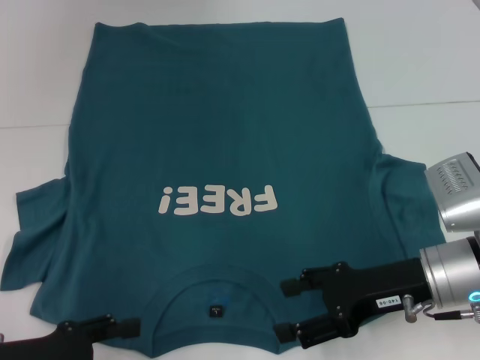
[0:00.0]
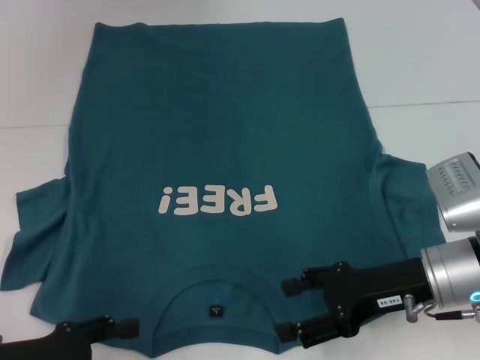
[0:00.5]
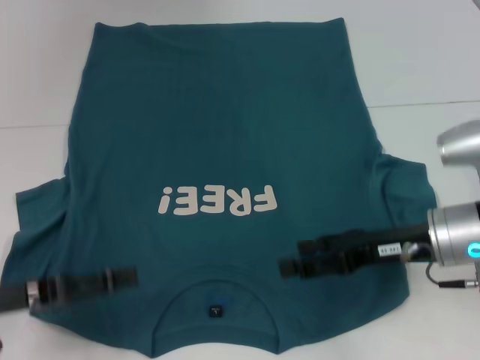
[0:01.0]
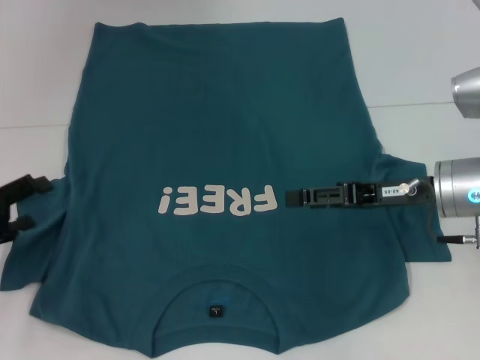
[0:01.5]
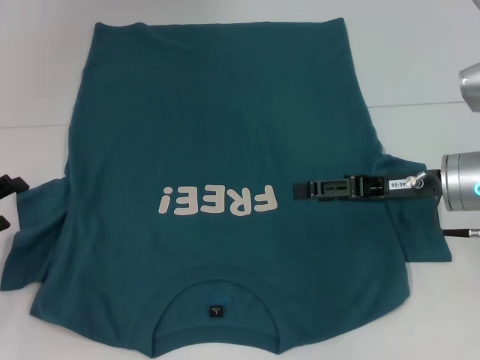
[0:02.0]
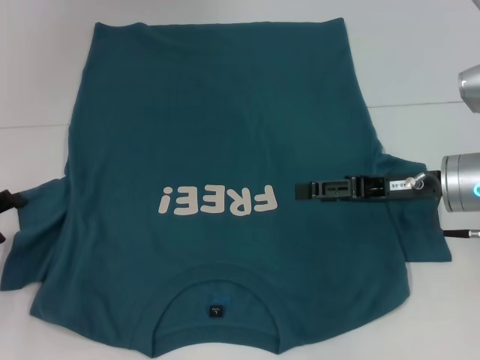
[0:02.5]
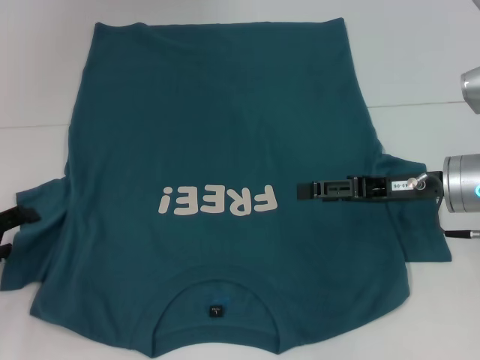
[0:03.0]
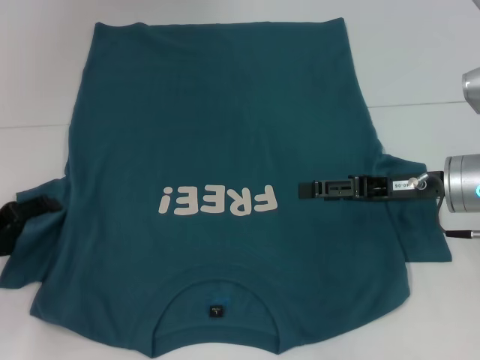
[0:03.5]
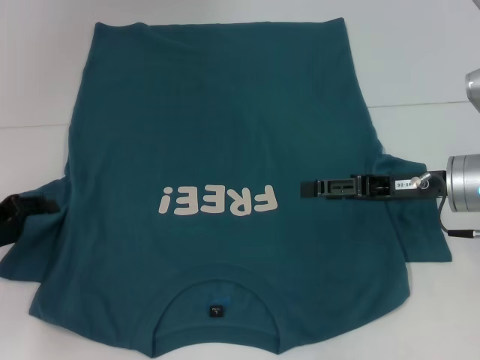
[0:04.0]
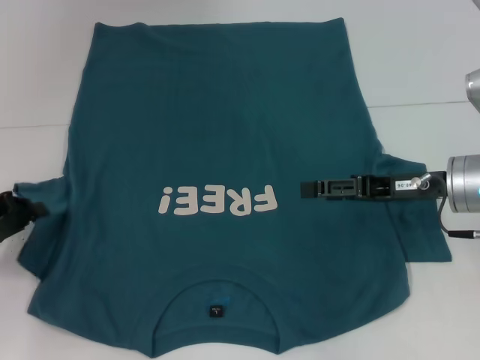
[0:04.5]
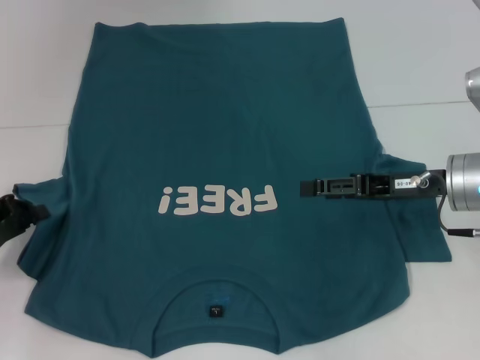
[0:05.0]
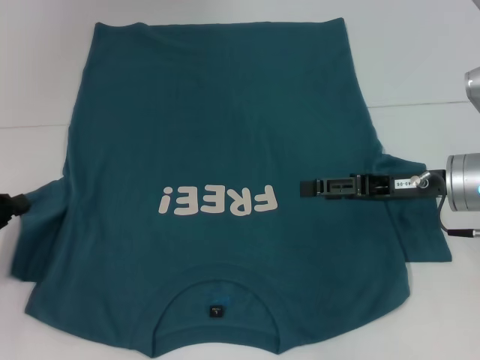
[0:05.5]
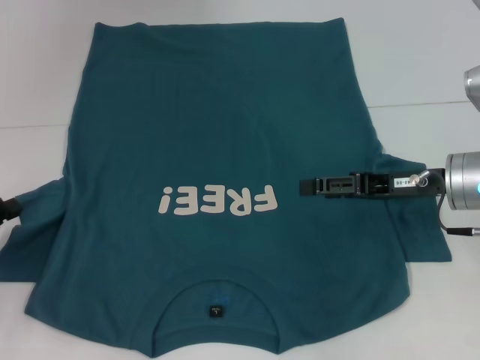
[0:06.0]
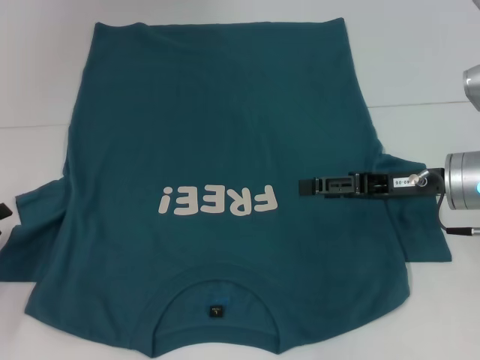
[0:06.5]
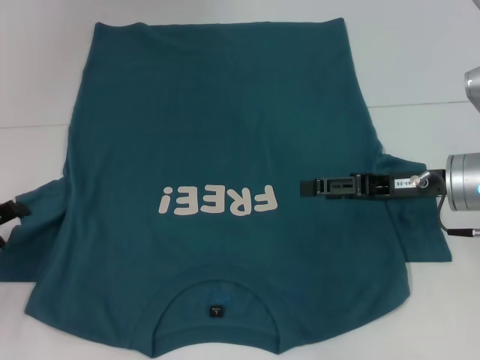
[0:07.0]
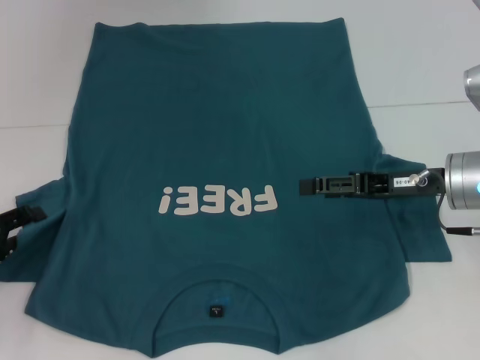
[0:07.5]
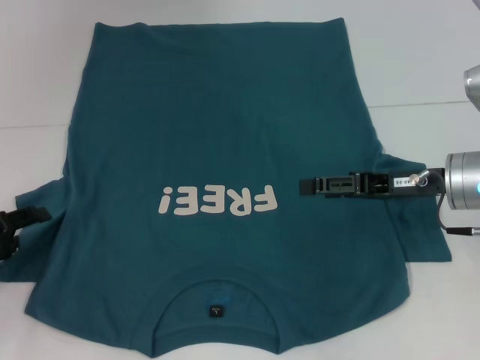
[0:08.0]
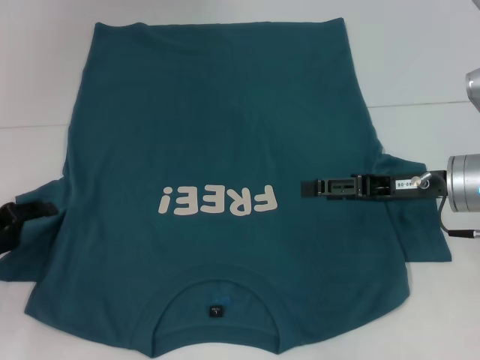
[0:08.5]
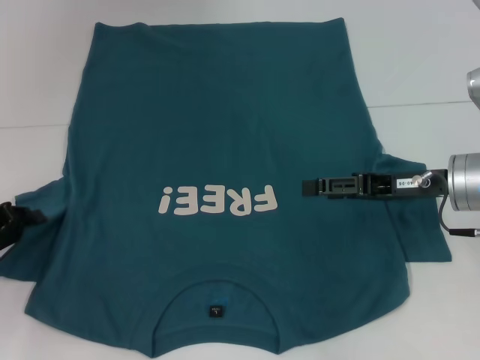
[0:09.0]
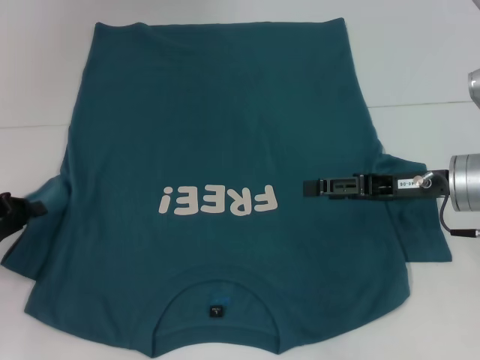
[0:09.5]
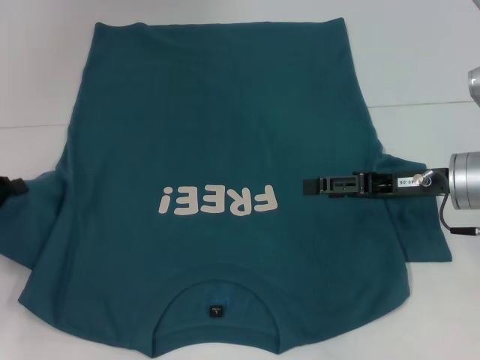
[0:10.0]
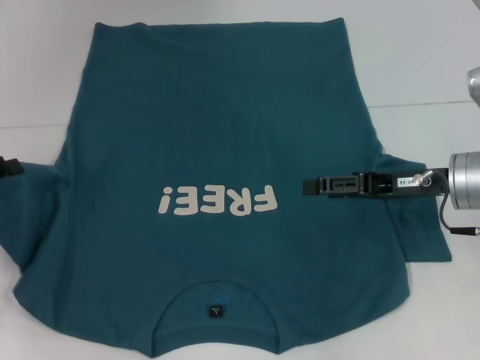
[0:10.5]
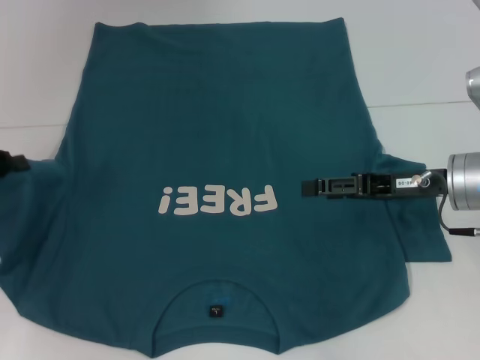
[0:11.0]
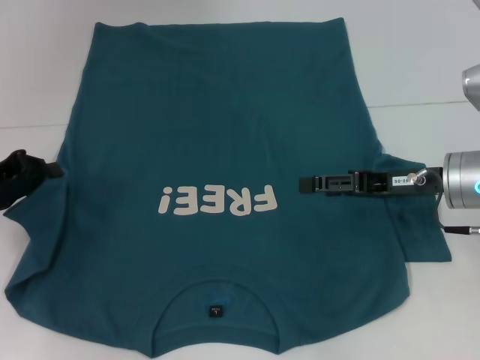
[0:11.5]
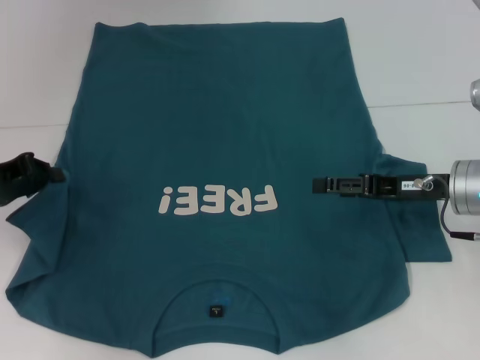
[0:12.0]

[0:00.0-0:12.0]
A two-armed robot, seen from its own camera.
0:00.0 to 0:02.0: The left gripper is displaced forward and to the left by some 15 cm; the right gripper heads forward, covering roughly 5 cm.
0:02.0 to 0:04.0: There are only small adjustments of the grippers.
0:04.0 to 0:06.0: The left gripper closes its fingers.
0:06.0 to 0:08.0: The left gripper opens.
0:08.0 to 0:10.0: The left gripper closes up.
0:10.0 to 0:12.0: The left gripper ends up approximately 5 cm from where it was.

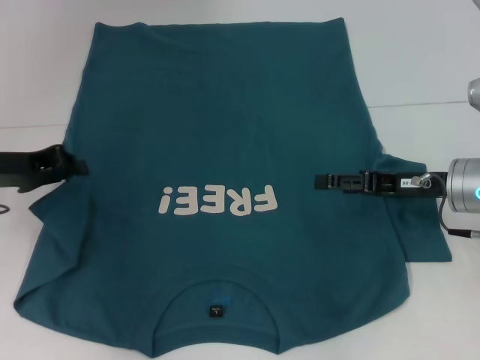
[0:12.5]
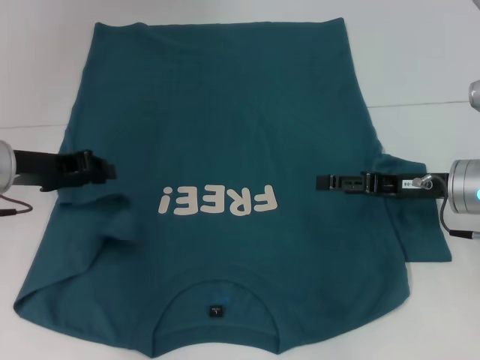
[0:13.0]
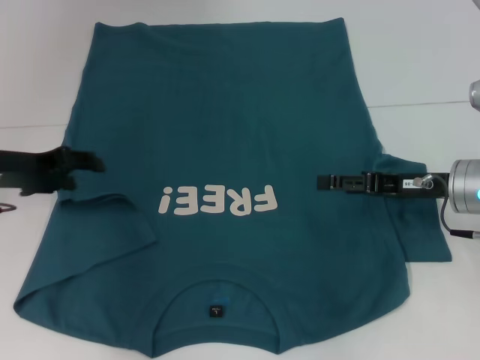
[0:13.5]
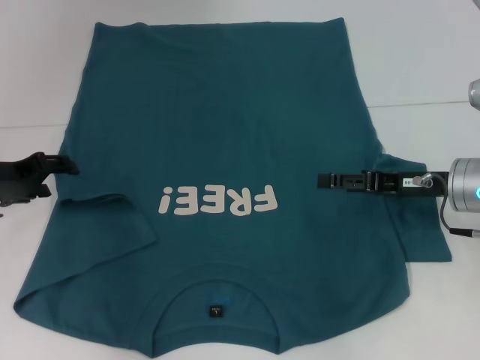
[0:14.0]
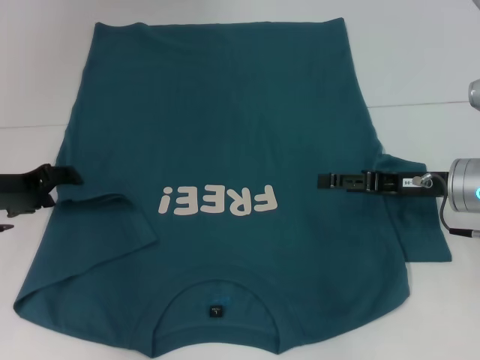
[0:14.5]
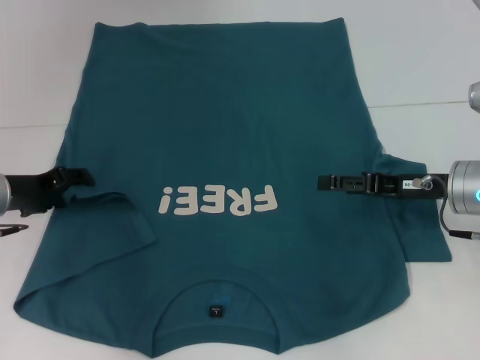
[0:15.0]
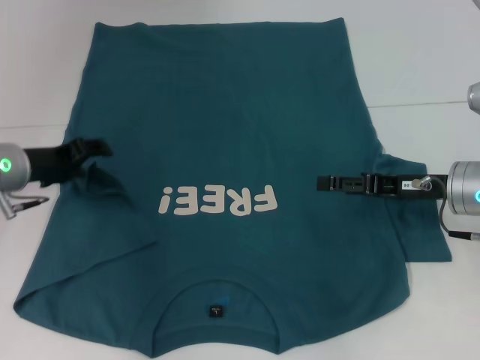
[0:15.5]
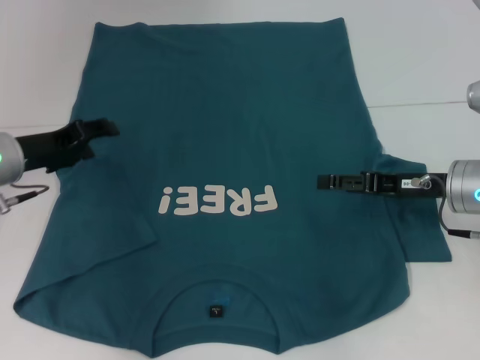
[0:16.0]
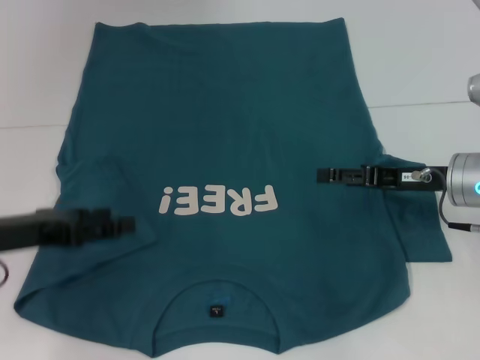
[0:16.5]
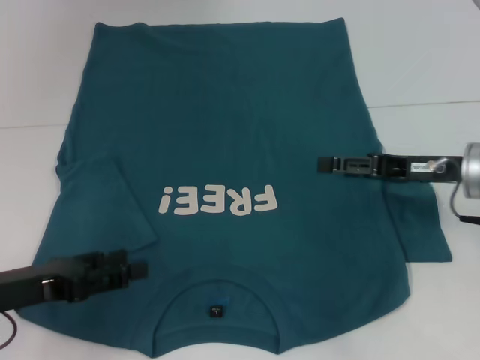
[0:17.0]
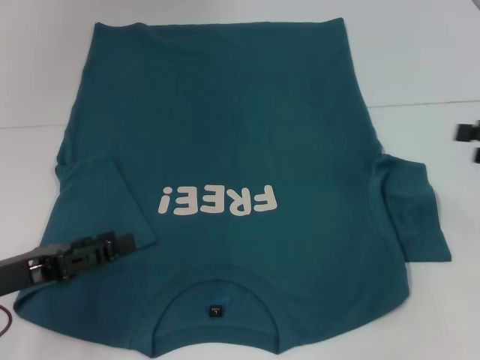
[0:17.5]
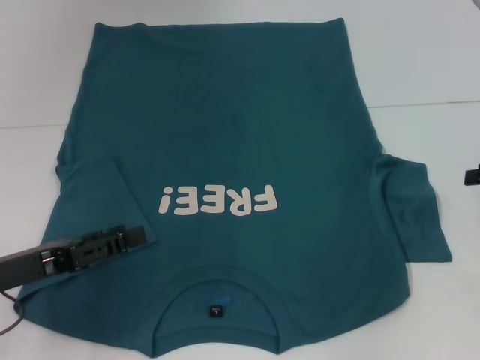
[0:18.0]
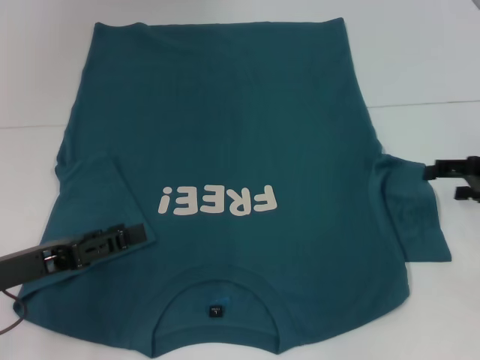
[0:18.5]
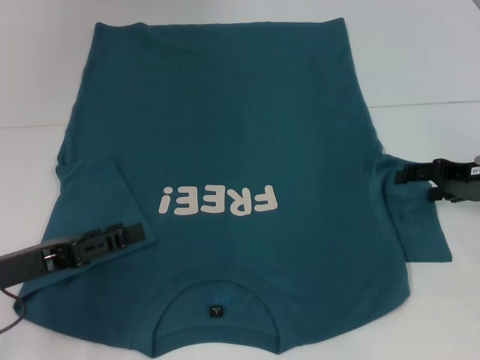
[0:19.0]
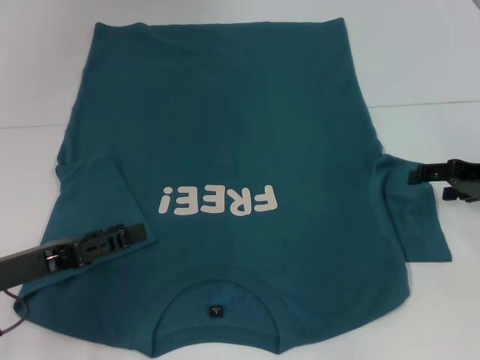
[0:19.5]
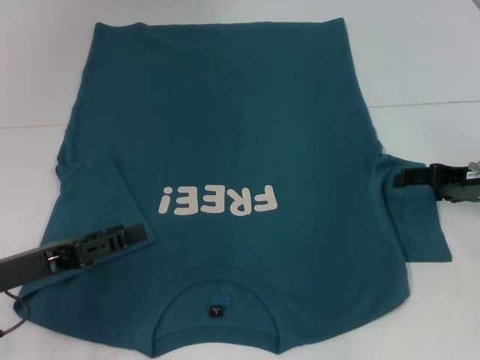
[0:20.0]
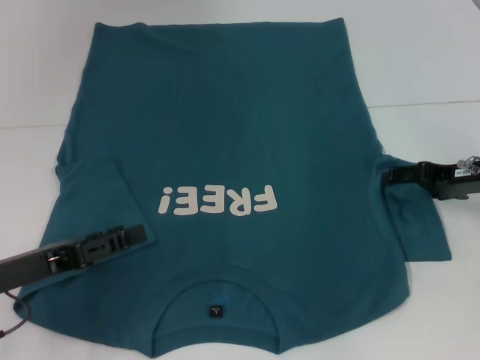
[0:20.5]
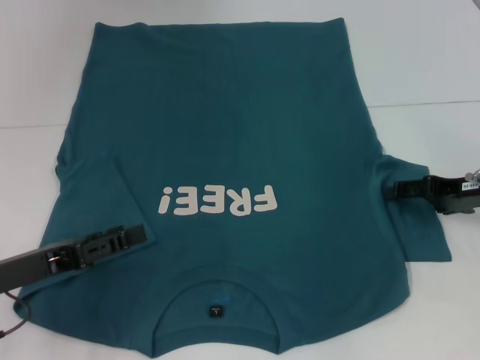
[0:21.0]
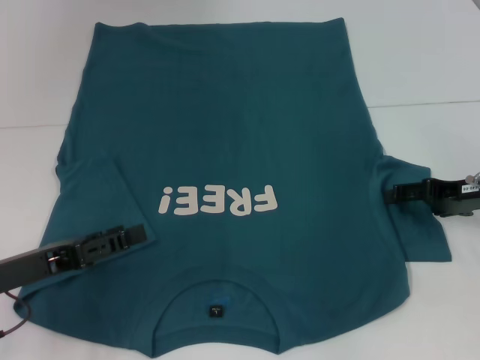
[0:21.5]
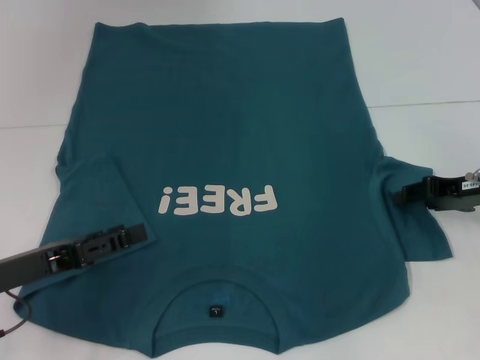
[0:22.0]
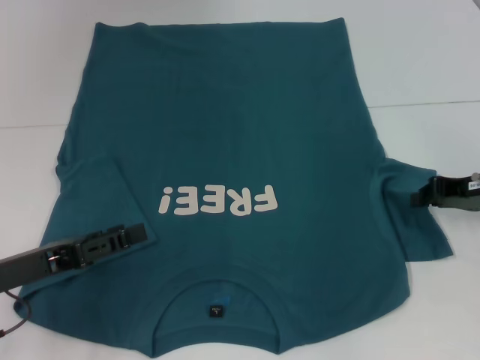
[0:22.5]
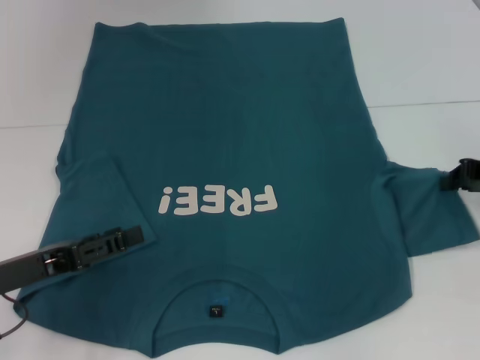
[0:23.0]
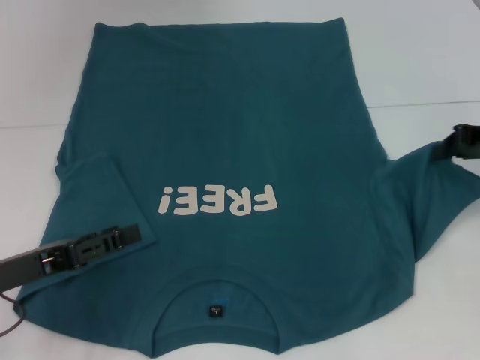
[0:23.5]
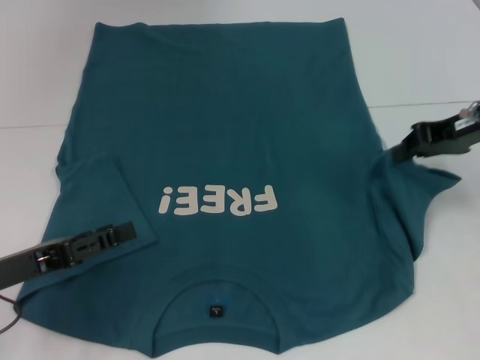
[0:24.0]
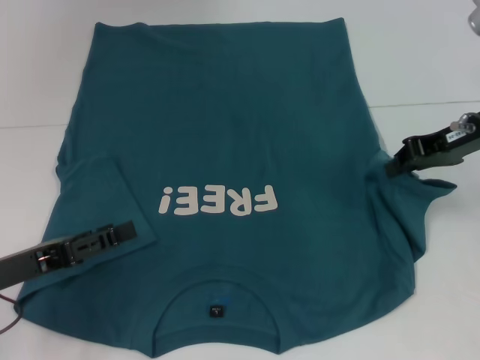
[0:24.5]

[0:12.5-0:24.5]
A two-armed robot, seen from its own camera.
Step, 0:12.5 to 0:15.5: Fold the bottom left sleeve with your left hand.
0:12.5 to 0:14.5: The left gripper opens its fingers.
0:14.5 to 0:16.5: The left gripper shifts roughly 10 cm backward.
0:16.5 to 0:18.5: The right gripper moves to the right, approximately 10 cm.
0:18.5 to 0:20.5: The right gripper shifts by approximately 5 cm.
0:20.5 to 0:22.5: The right gripper closes up.
0:22.5 to 0:24.5: The right gripper travels upward by about 10 cm.

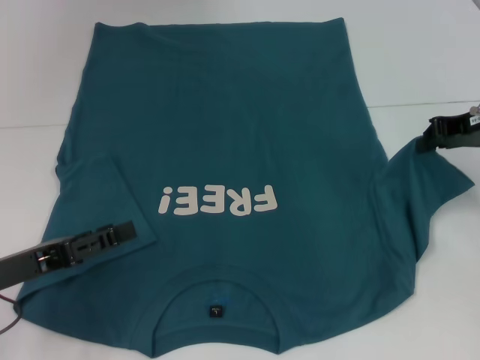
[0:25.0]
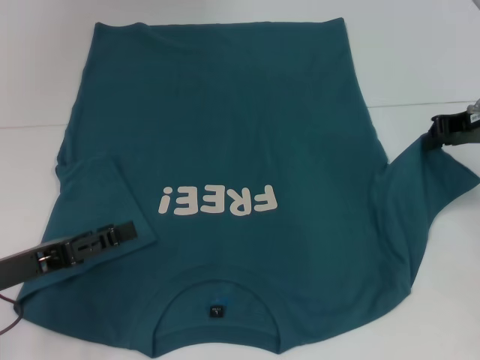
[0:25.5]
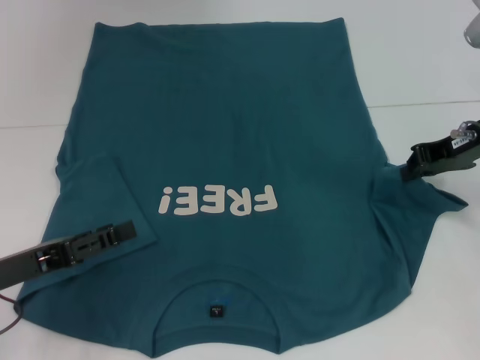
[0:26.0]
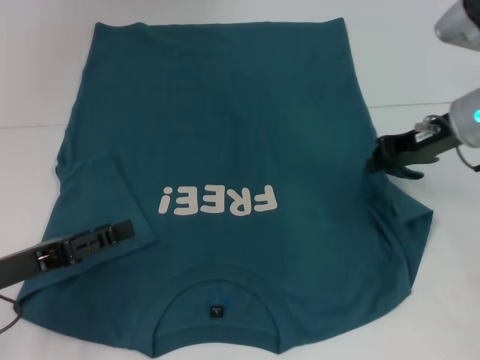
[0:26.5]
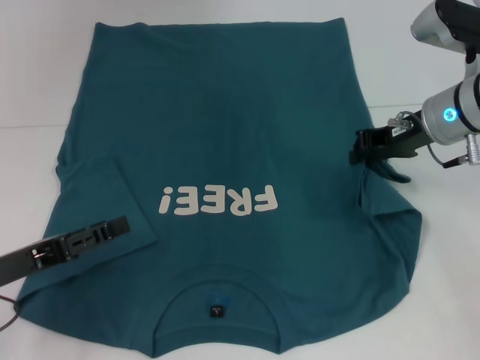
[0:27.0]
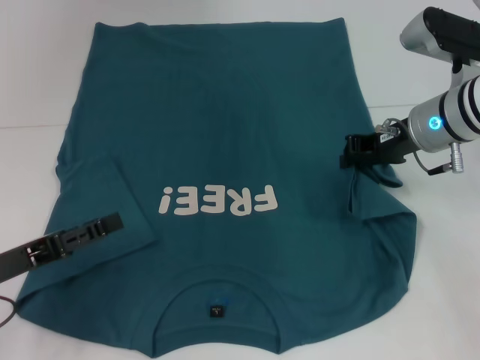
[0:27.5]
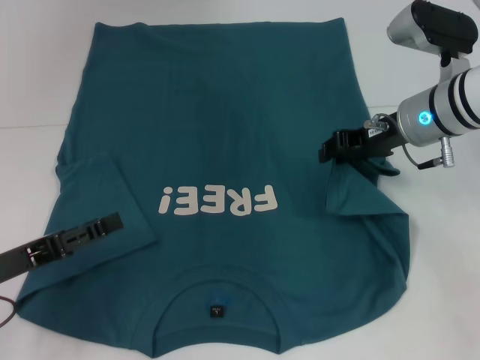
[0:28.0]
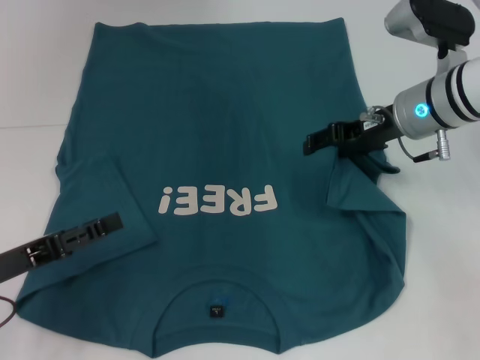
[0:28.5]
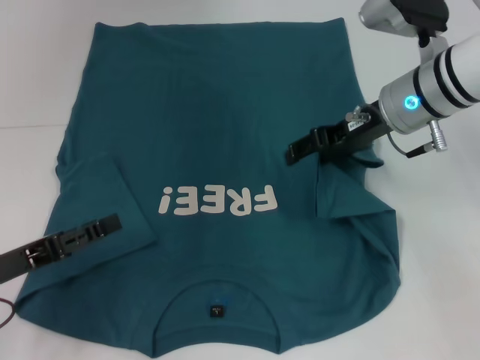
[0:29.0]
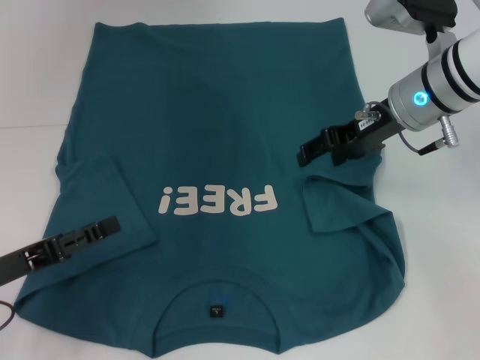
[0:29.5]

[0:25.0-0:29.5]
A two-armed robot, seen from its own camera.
Step, 0:25.0 to 0:29.5: Fold the bottom right sleeve to the right.
0:25.0 to 0:27.0: The right gripper goes some 10 cm to the left.
0:27.0 to 0:29.5: The right gripper opens its fingers.
